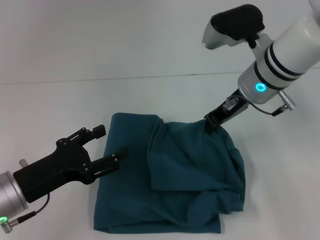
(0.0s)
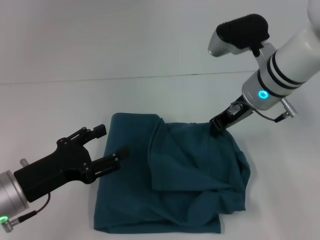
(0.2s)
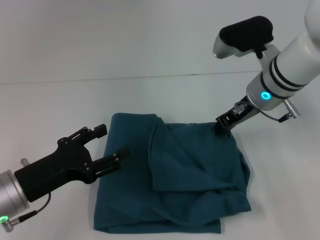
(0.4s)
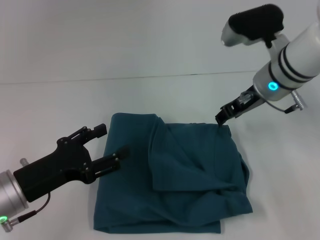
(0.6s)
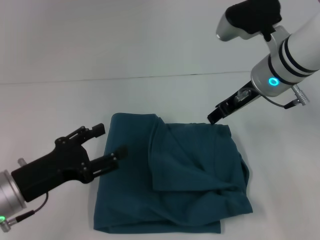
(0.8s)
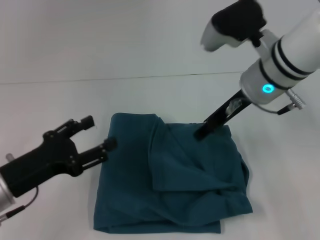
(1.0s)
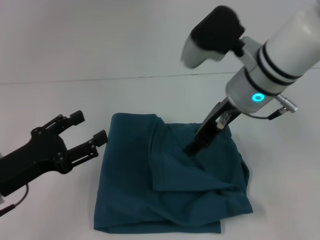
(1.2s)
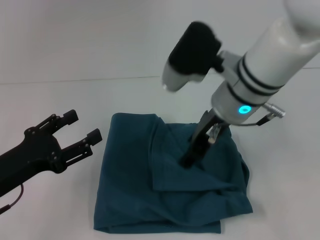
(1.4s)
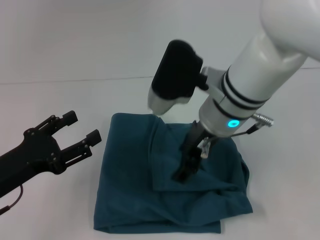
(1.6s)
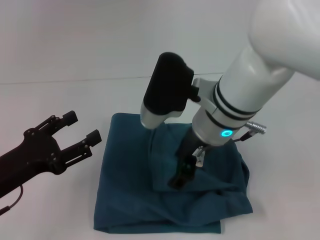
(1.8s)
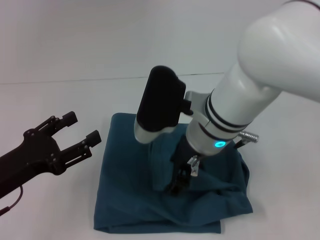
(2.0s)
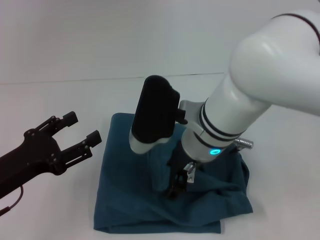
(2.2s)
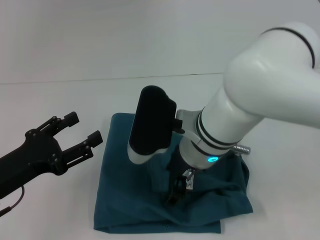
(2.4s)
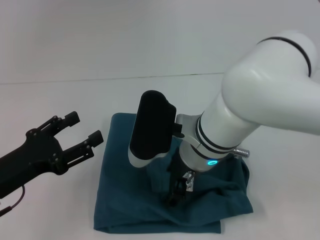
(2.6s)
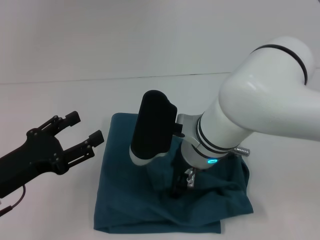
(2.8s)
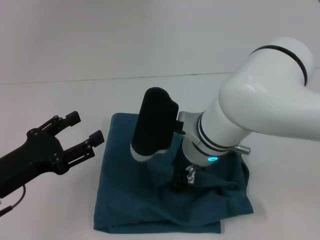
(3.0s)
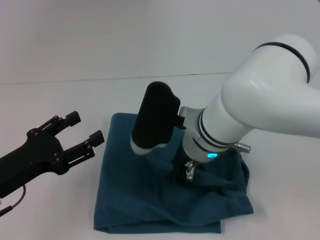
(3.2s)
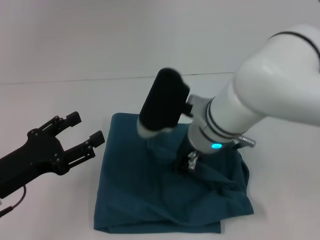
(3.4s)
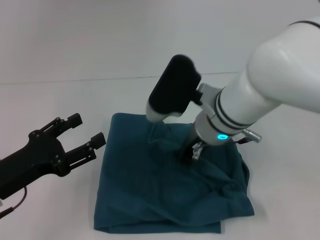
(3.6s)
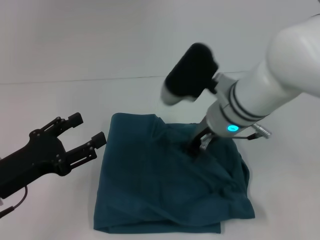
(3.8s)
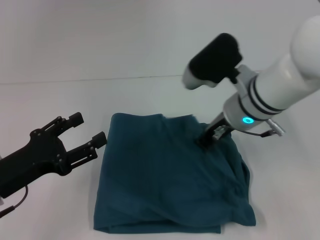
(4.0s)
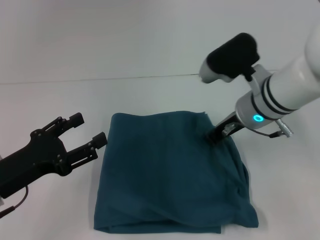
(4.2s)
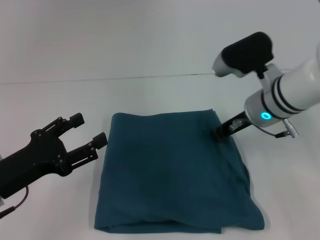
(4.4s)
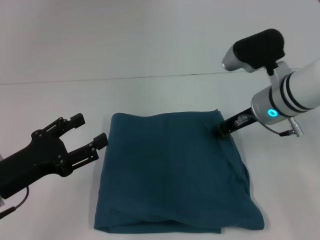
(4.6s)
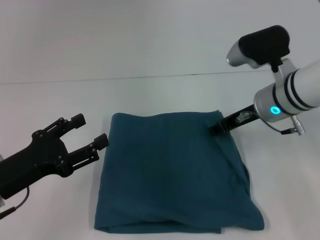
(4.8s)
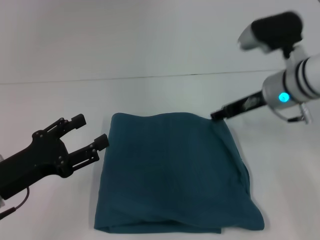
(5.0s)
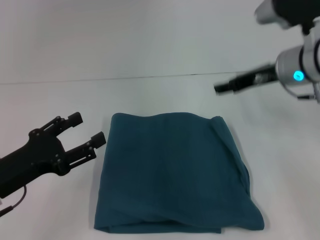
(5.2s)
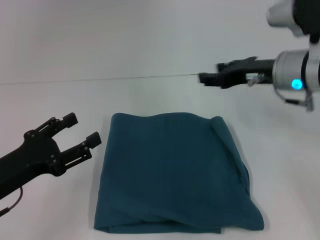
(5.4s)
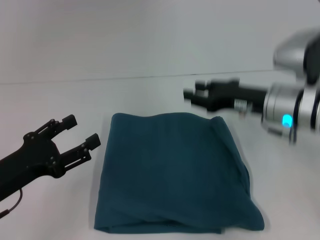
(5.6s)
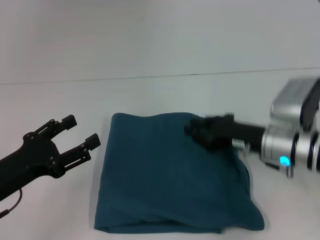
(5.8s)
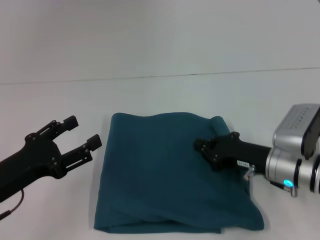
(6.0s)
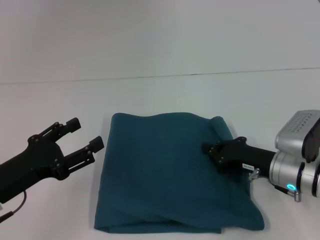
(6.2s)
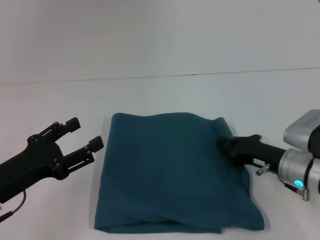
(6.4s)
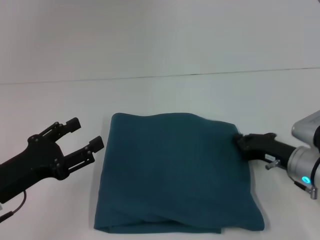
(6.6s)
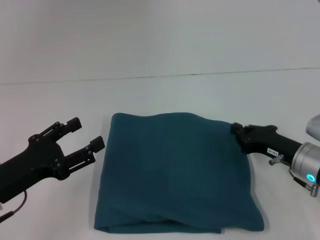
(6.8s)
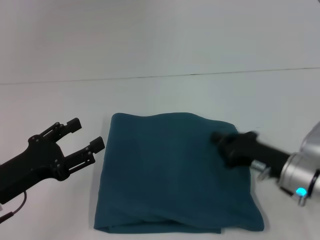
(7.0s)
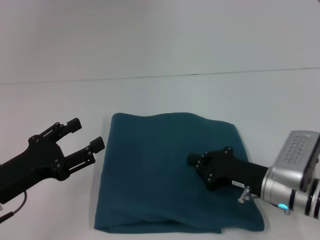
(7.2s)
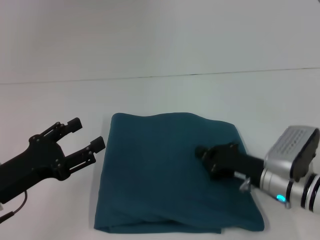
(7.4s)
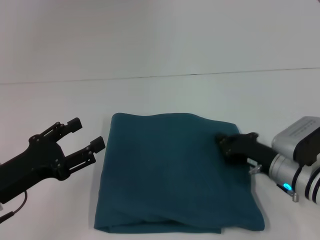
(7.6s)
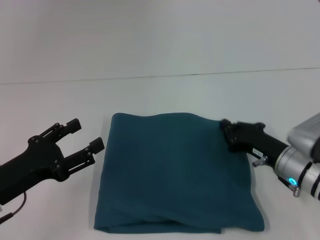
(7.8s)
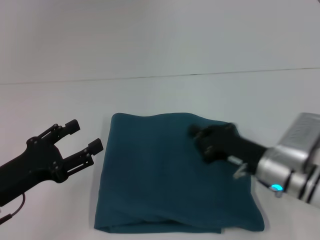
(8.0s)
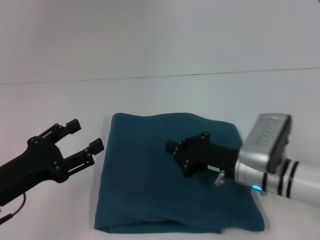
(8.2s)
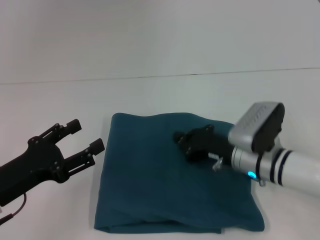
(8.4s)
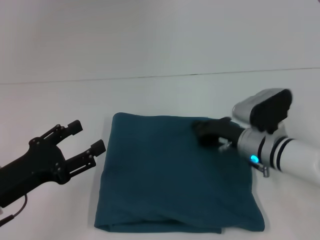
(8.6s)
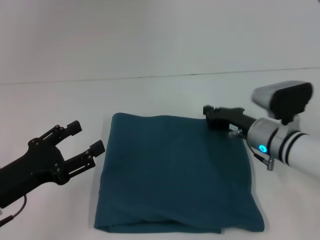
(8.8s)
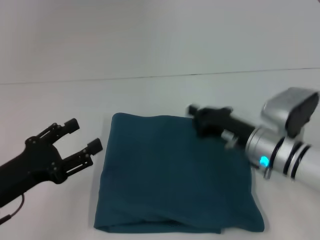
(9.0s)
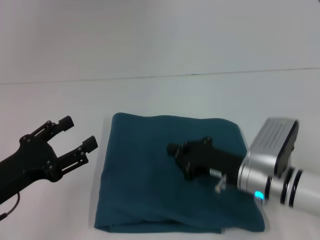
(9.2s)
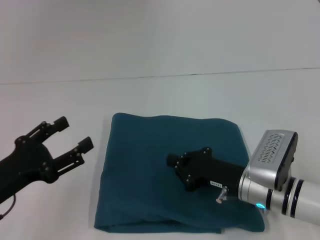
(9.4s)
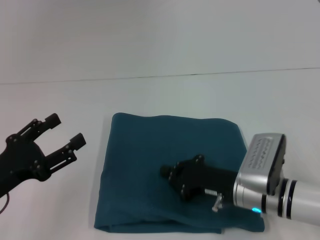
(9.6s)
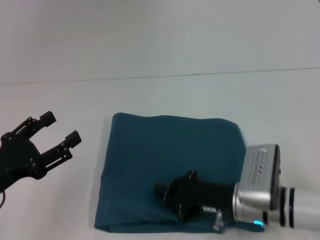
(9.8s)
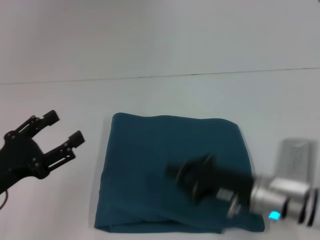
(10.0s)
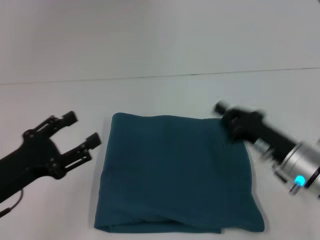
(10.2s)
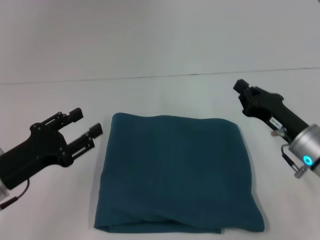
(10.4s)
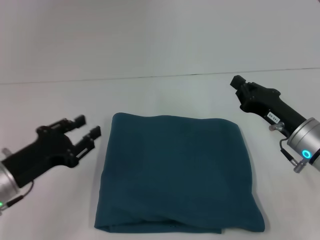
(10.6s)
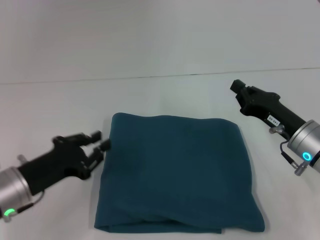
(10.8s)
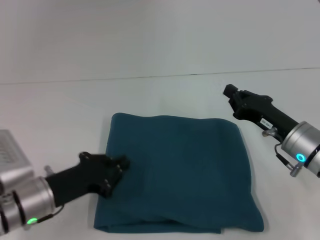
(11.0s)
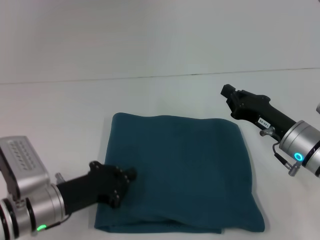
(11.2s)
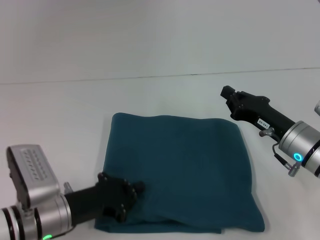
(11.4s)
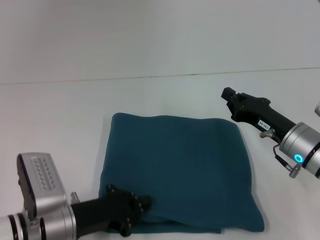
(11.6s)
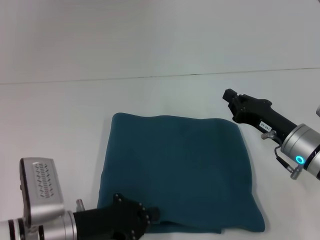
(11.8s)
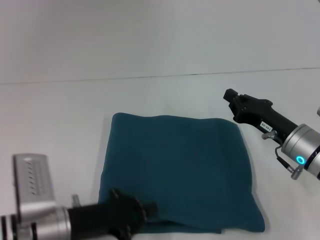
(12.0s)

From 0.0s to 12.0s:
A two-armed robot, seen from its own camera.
From 0.0s to 1.6s: The right gripper moves to the left and backward, approximately 10 cm, and opens its fingers.
From 1.6s to 3.0s: The right gripper goes approximately 5 cm downward.
From 3.0s to 4.4s: The right gripper moves to the right and forward, about 15 cm, and closes its fingers.
From 4.4s to 6.0s: The right gripper travels downward and backward by approximately 10 cm, and opens, then closes once more.
From 6.0s to 7.6s: The grippers make only small movements.
From 7.6s to 9.0s: The right gripper ends up about 5 cm from where it was.
From 9.0s to 10.4s: The right gripper is displaced to the right by about 5 cm.
From 10.4s to 12.0s: The left gripper travels to the right by some 5 cm, and closes.

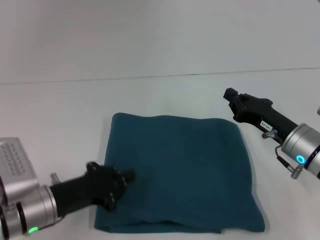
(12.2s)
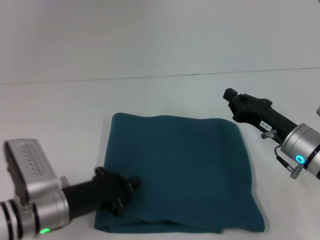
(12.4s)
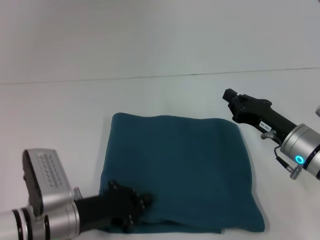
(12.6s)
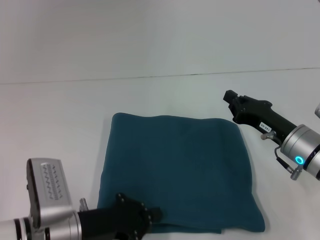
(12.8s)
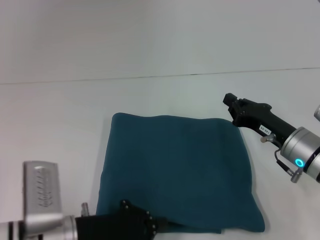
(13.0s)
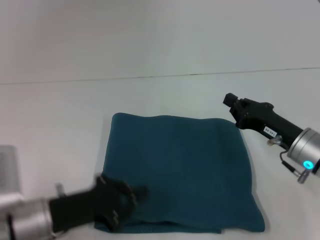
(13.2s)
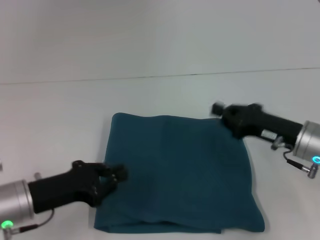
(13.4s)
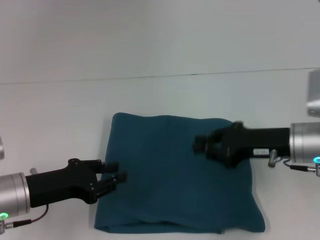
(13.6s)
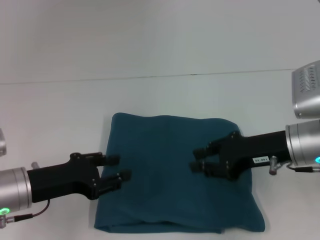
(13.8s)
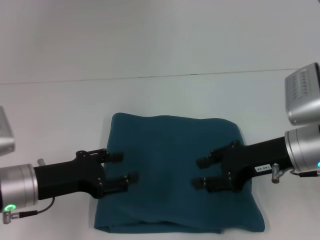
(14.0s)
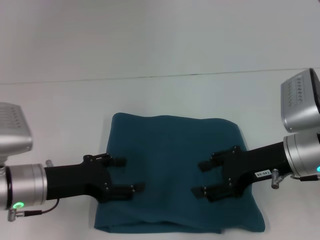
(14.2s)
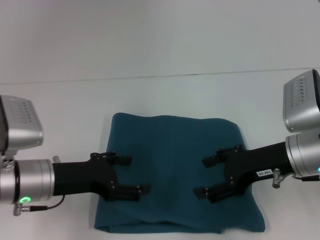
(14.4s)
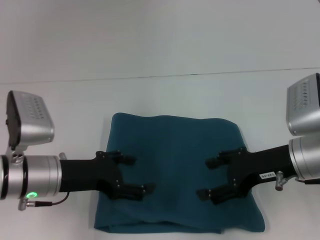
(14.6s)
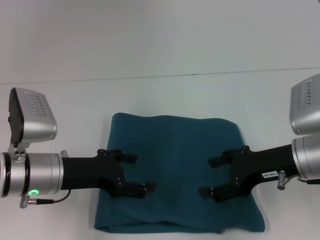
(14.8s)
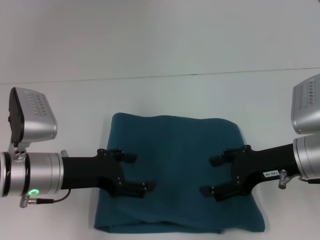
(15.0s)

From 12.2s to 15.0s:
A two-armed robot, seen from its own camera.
From 12.2s to 13.6s: The right gripper goes approximately 5 cm upward.
From 13.6s to 15.0s: The right gripper opens its fingers, while the left gripper changes place by approximately 5 cm, and opens up.

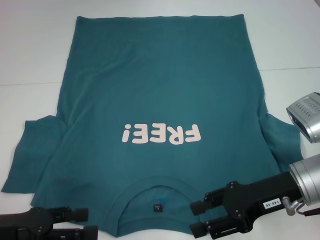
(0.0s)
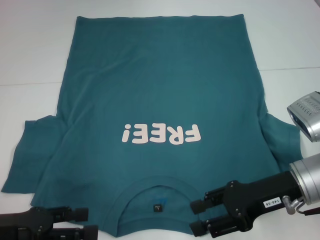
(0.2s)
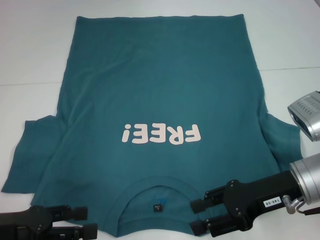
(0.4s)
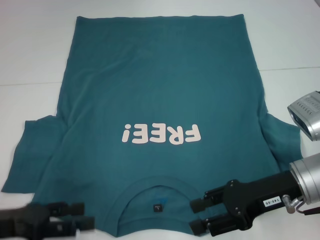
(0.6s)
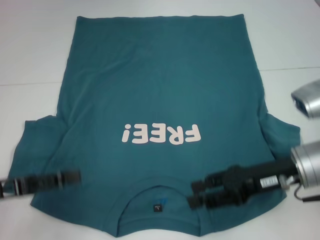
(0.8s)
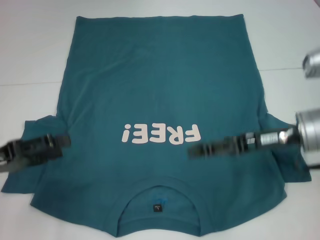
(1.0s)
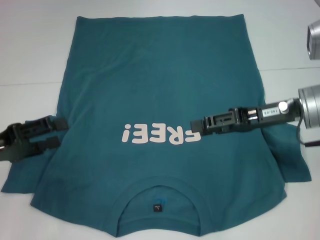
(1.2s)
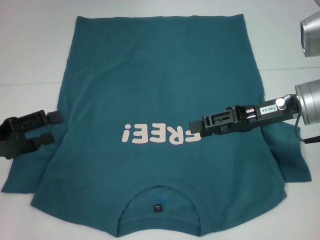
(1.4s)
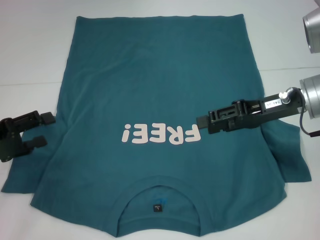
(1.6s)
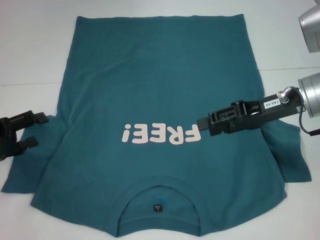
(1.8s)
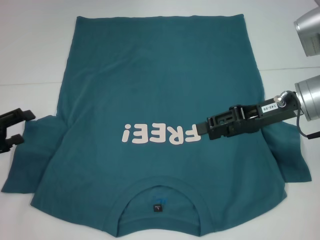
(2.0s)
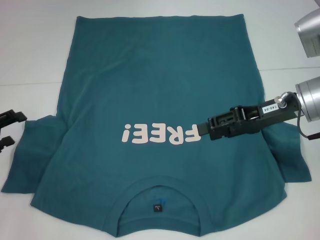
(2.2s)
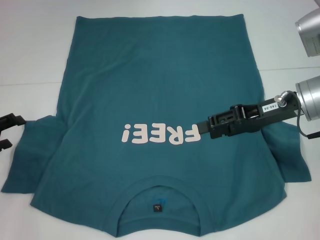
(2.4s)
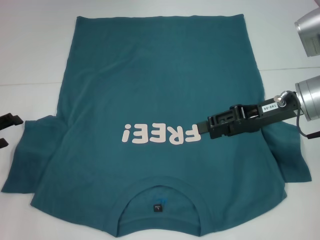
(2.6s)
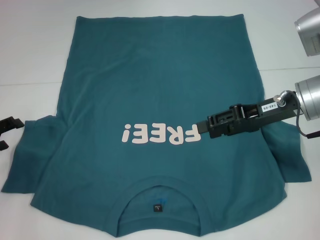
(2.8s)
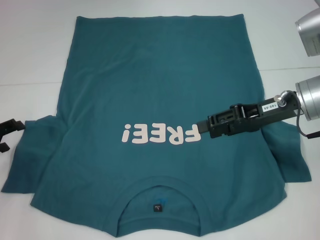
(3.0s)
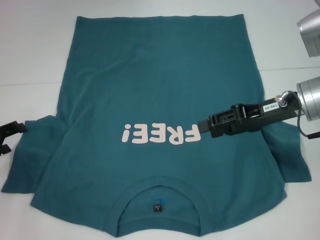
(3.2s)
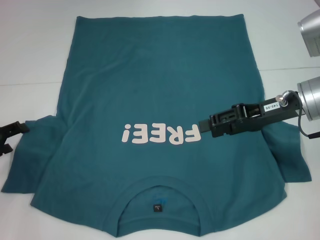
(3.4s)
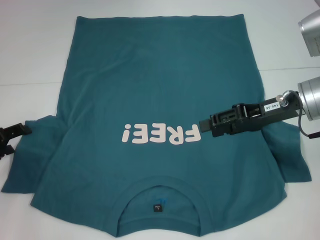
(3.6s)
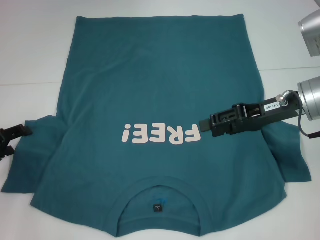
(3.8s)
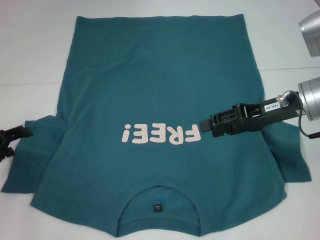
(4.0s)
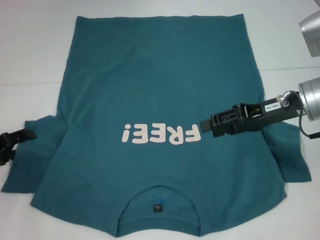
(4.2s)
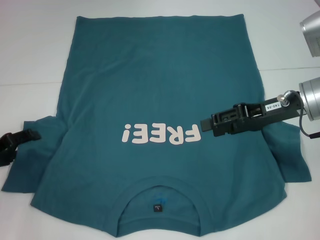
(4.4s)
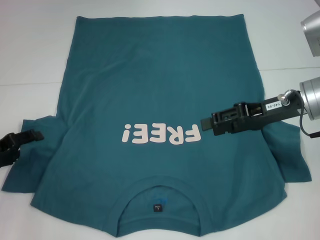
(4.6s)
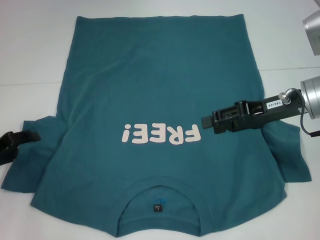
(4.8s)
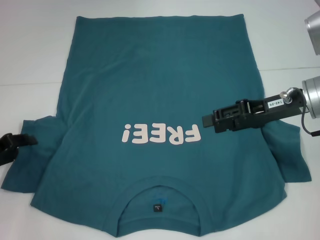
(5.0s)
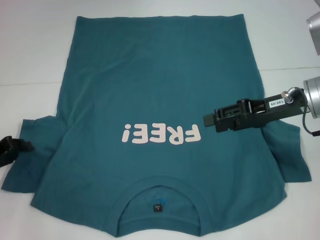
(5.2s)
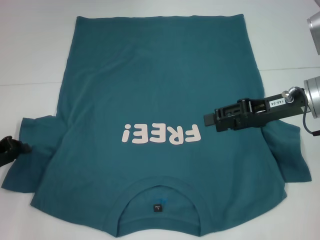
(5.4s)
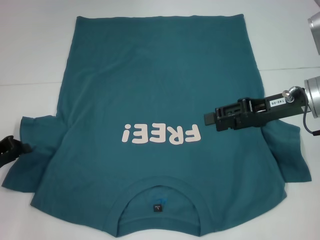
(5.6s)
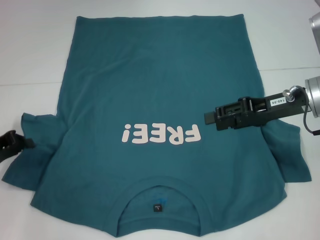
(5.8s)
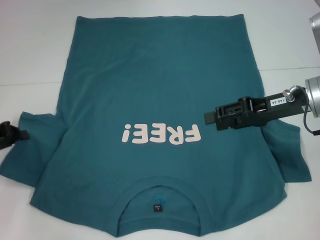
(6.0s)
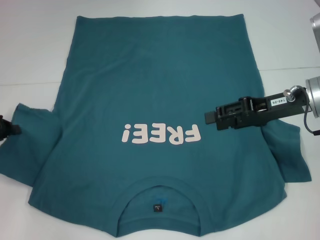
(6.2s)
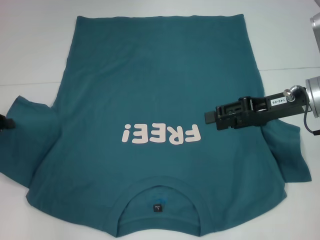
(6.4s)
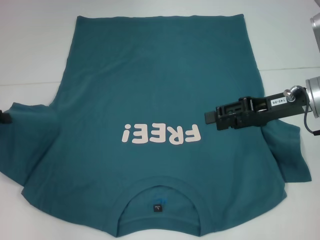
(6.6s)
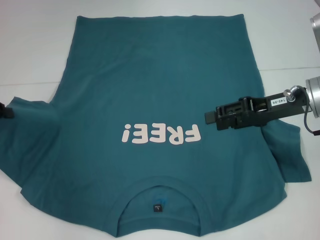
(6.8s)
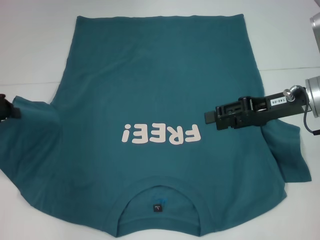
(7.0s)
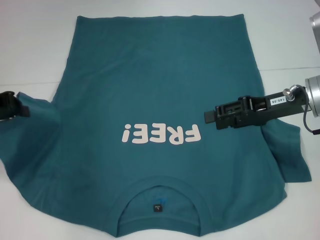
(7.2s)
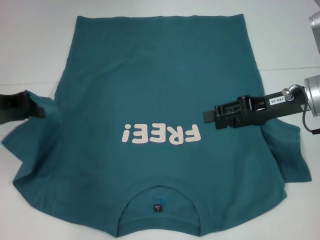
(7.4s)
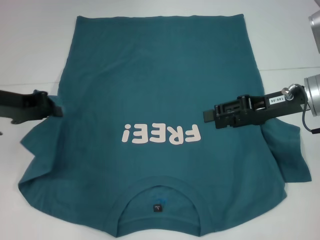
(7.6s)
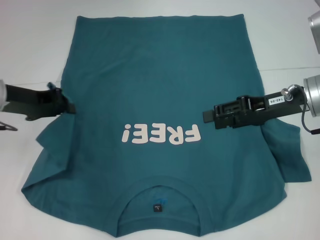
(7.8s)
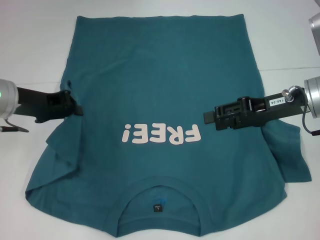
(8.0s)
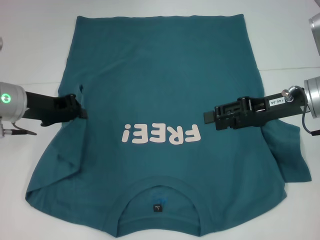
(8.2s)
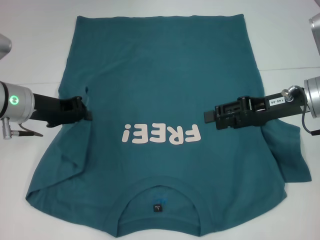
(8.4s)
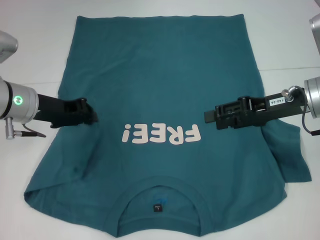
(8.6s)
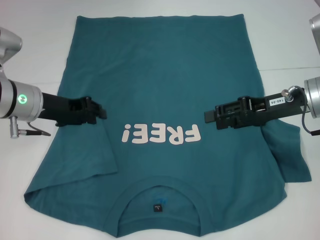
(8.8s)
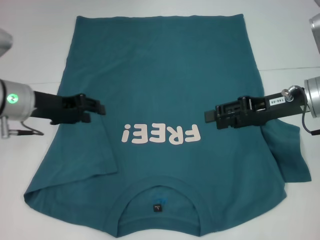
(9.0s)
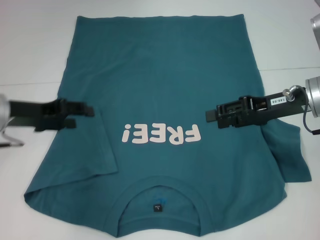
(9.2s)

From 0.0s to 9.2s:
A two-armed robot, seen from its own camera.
Step, from 0.0s to 8.8s: Fold the bottom left sleeve with your left hand.
From 0.0s to 1.6s: The right gripper shifts approximately 10 cm forward and upward. The left gripper travels forward by roughly 5 cm.
From 1.6s to 3.0s: The left gripper moves approximately 5 cm.
From 3.0s to 4.6s: There are only small adjustments of the grippers.
From 4.6s to 6.2s: The left gripper changes place by roughly 5 cm, and closes.
From 6.2s to 7.6s: The left gripper travels to the right and upward by approximately 10 cm.
From 7.6s to 9.2s: The left gripper opens.
